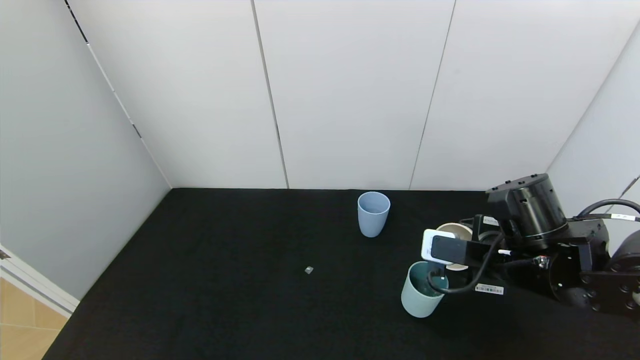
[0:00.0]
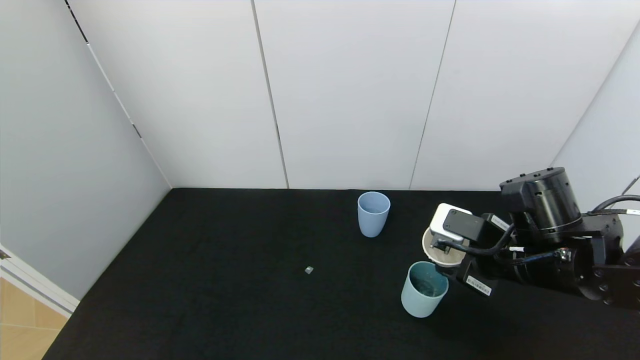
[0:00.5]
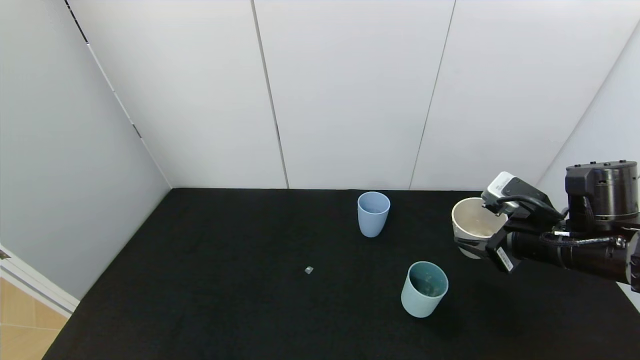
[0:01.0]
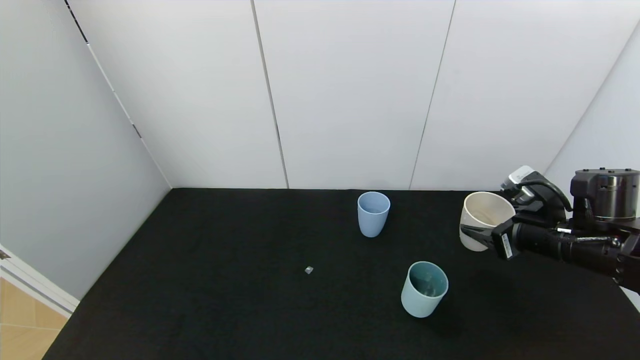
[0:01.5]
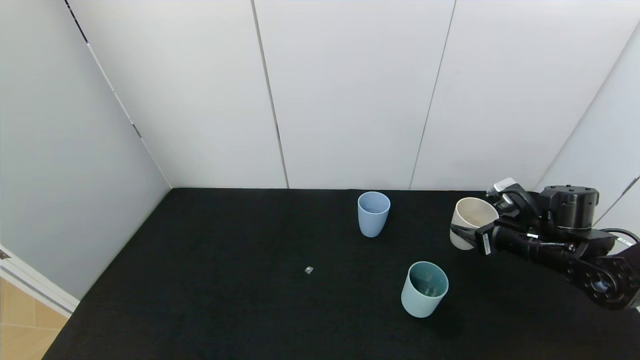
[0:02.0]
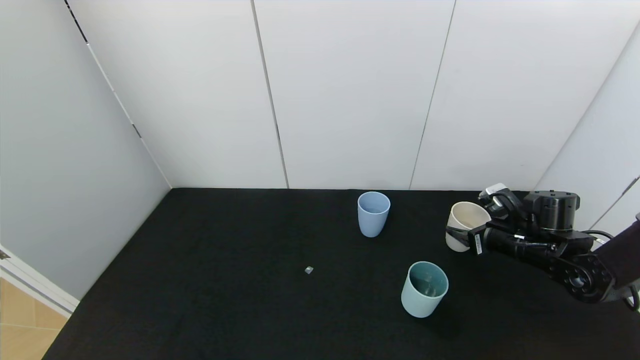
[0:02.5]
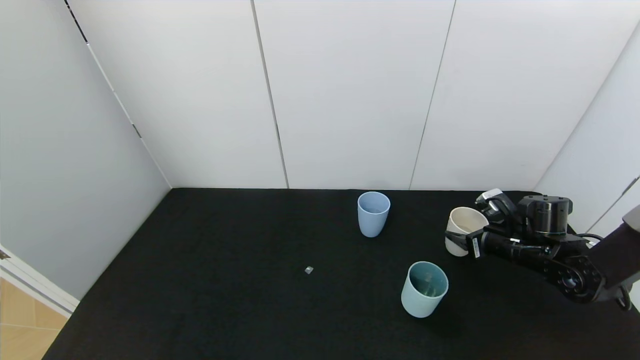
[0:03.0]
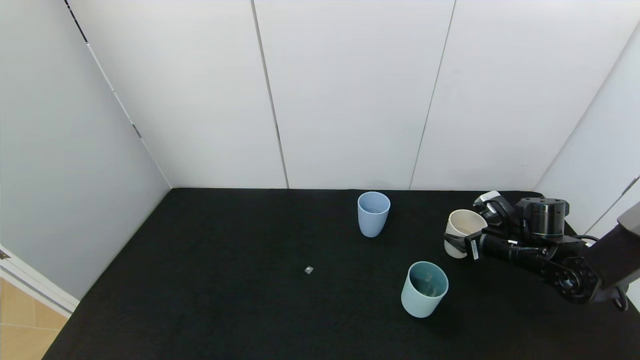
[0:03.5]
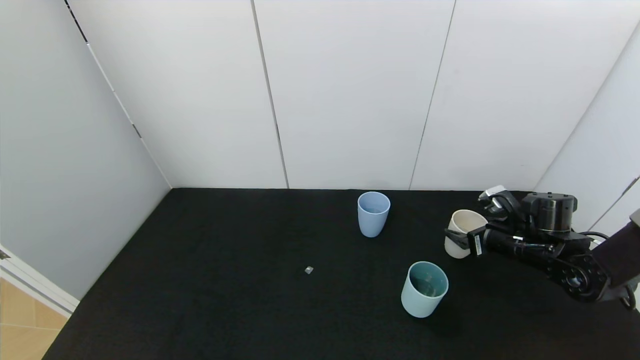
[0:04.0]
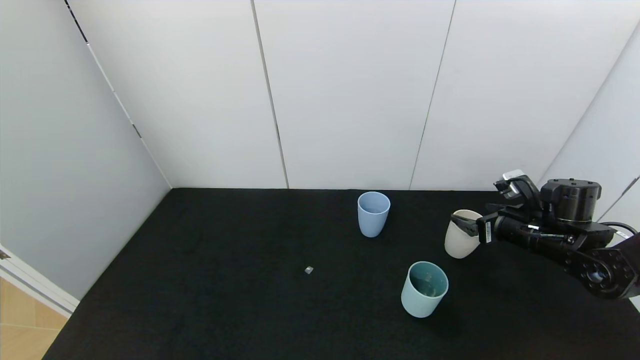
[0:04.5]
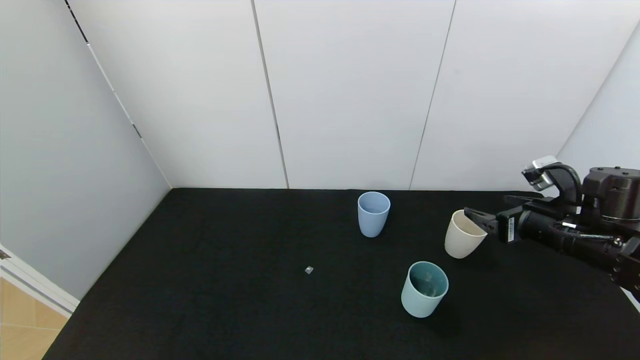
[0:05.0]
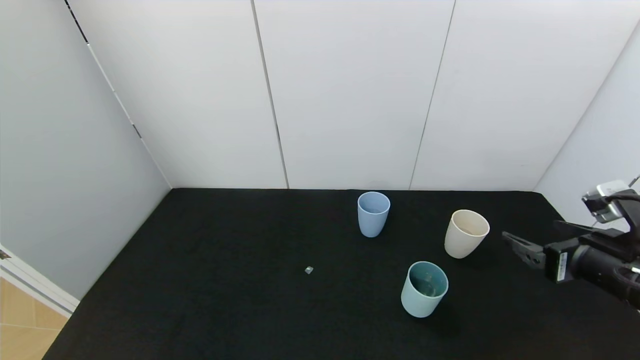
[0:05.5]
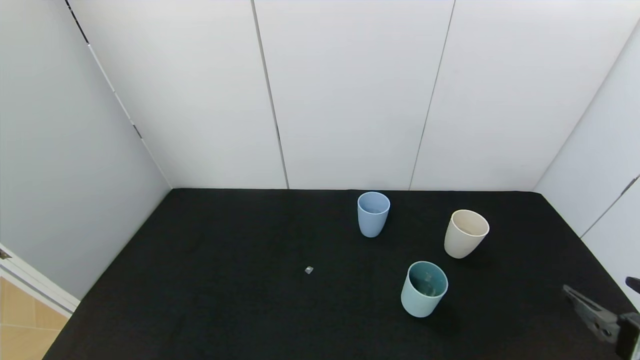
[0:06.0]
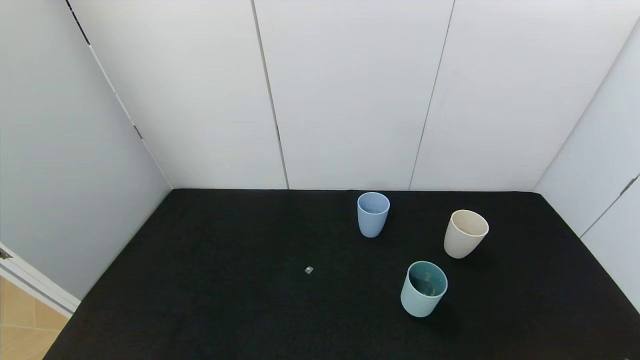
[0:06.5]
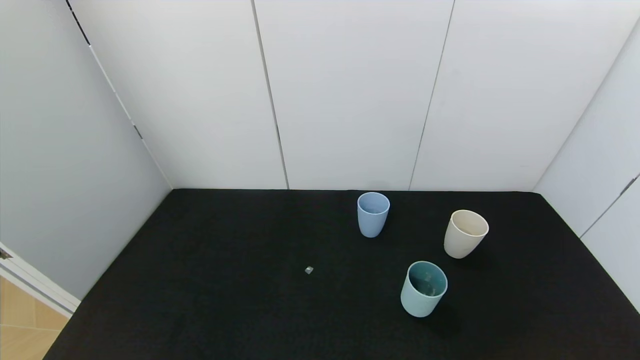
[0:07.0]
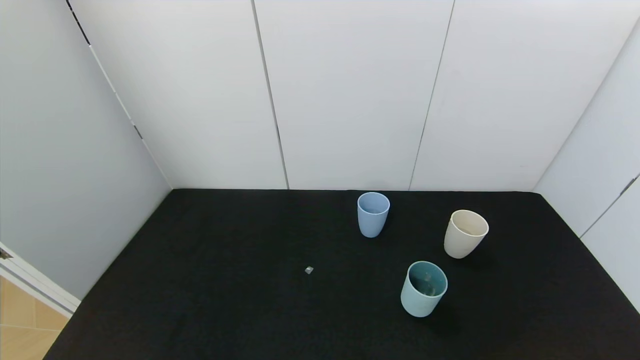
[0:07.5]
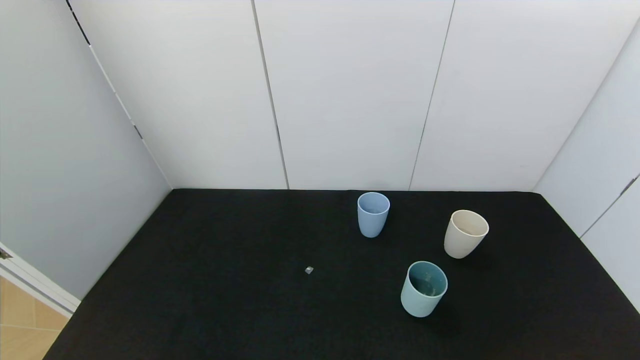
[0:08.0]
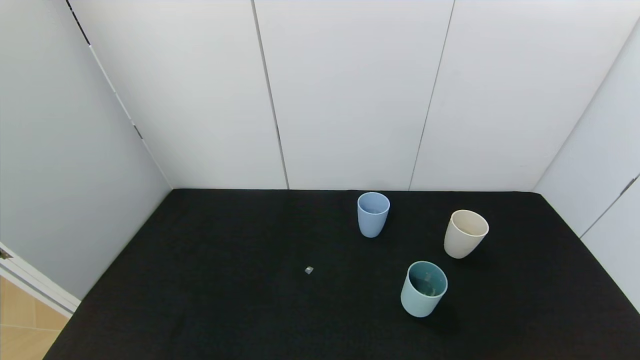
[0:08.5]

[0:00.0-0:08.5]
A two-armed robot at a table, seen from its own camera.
Task of the whole recording: use the gripper to pour the water into the other two cups on black table.
Step, 0:01.0 to 0:05.5: Place the white cup with the right gripper.
0:00.0 to 0:02.0: The right gripper travels to the right, forward and downward by approximately 15 cm.
0:02.0 to 0:04.0: The right gripper opens up.
0:04.0 to 0:06.5: The right gripper moves backward, approximately 35 cm.
